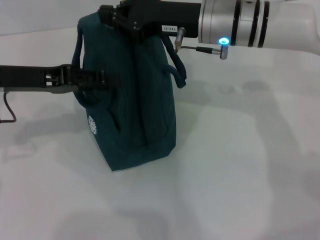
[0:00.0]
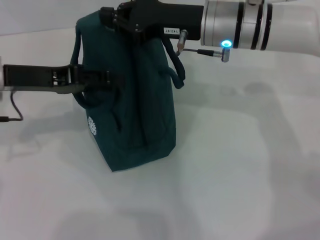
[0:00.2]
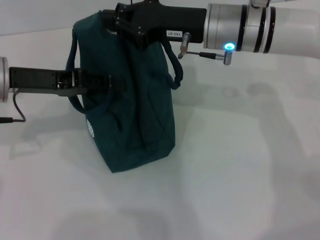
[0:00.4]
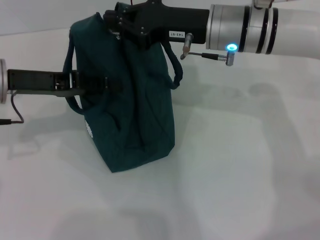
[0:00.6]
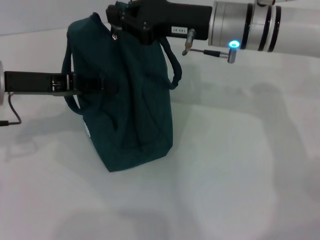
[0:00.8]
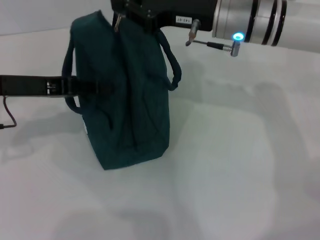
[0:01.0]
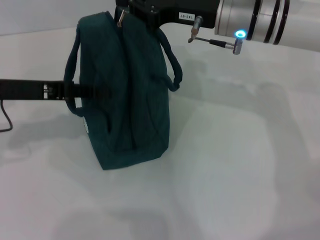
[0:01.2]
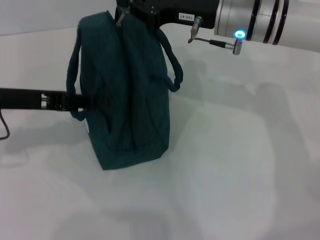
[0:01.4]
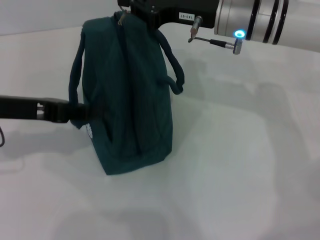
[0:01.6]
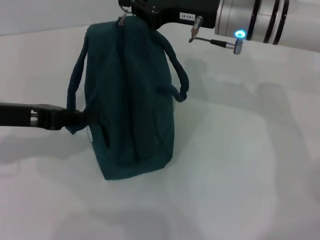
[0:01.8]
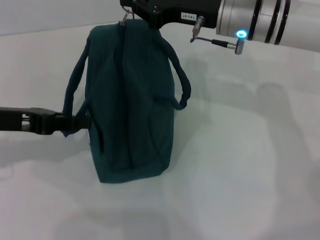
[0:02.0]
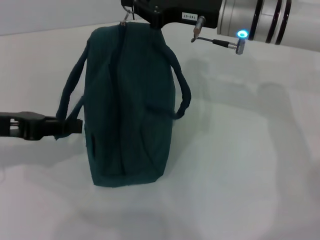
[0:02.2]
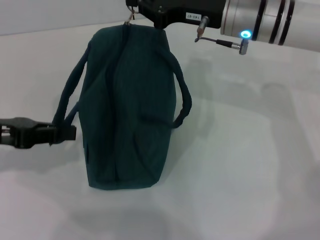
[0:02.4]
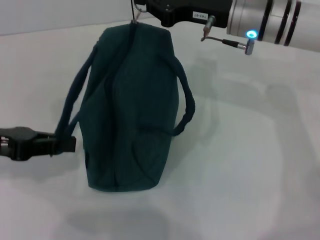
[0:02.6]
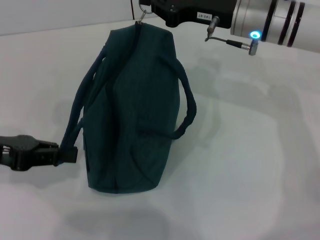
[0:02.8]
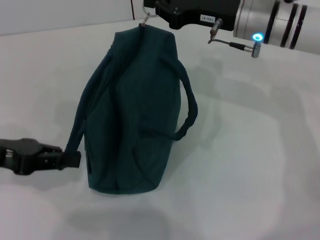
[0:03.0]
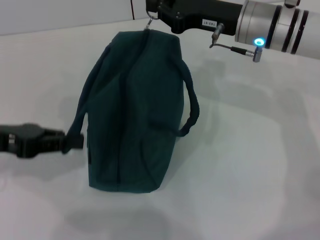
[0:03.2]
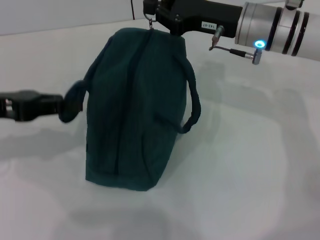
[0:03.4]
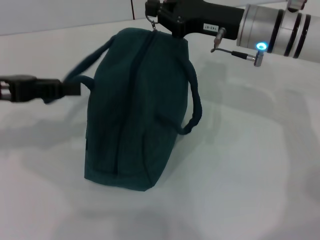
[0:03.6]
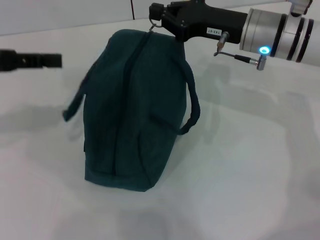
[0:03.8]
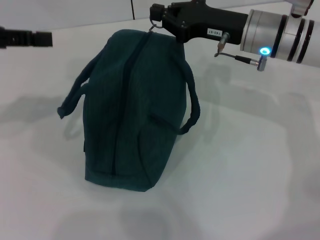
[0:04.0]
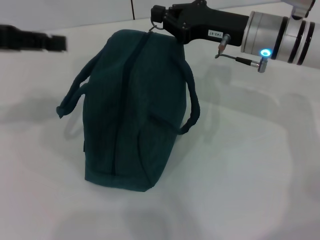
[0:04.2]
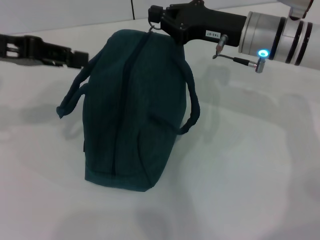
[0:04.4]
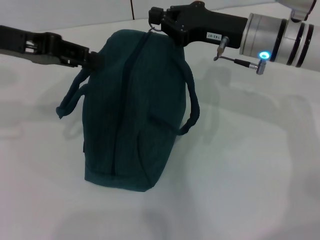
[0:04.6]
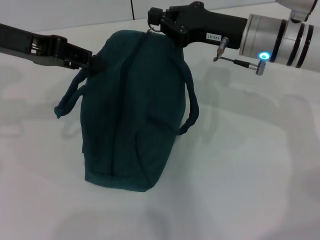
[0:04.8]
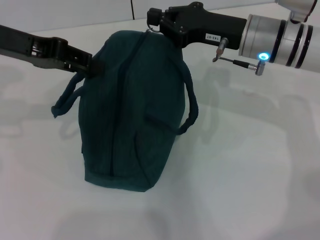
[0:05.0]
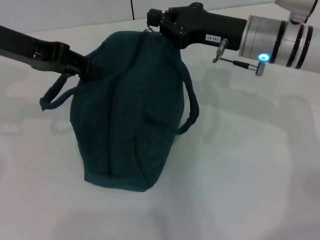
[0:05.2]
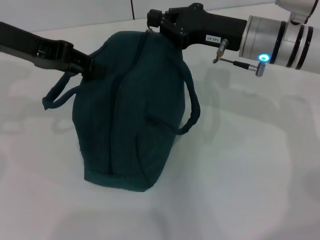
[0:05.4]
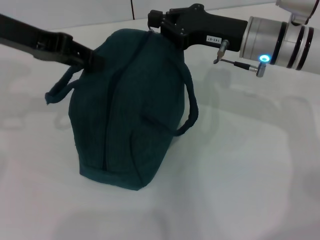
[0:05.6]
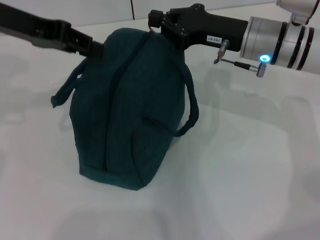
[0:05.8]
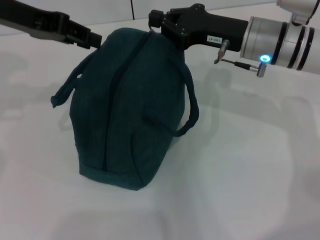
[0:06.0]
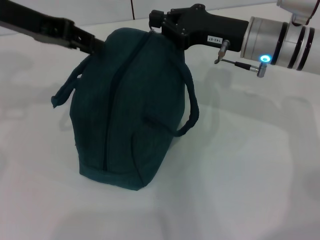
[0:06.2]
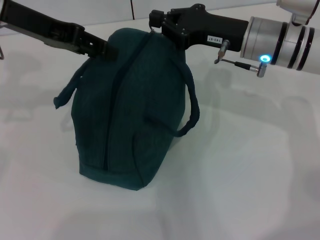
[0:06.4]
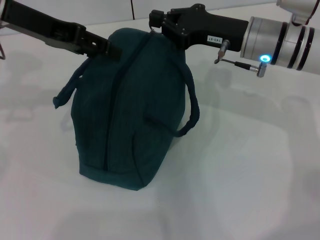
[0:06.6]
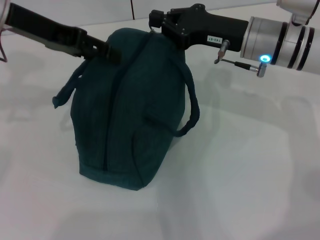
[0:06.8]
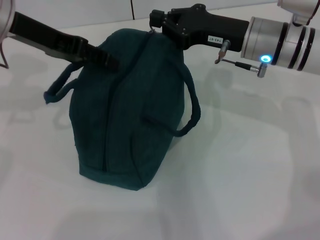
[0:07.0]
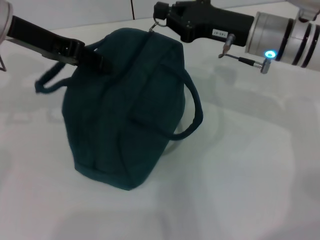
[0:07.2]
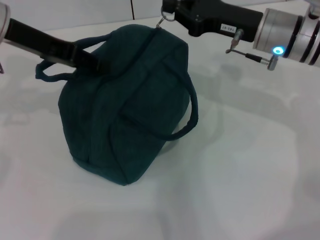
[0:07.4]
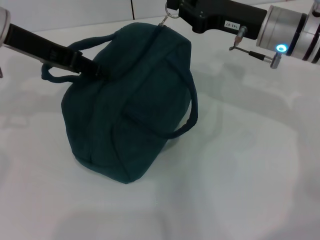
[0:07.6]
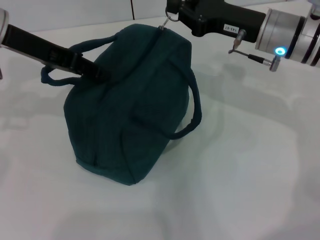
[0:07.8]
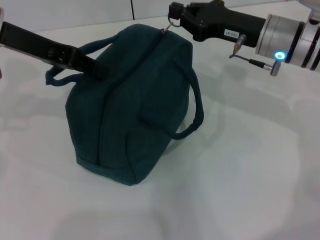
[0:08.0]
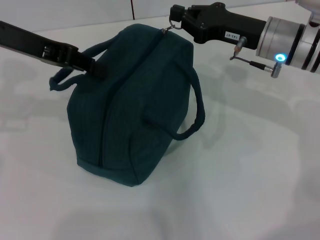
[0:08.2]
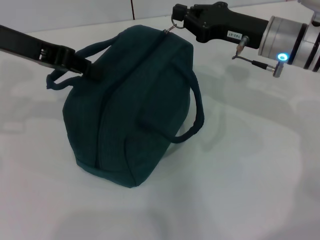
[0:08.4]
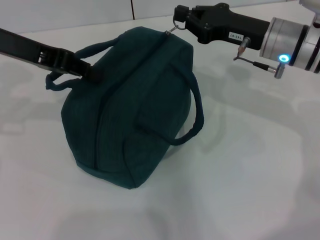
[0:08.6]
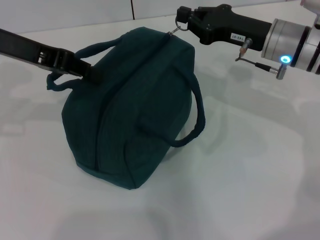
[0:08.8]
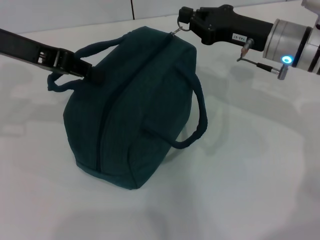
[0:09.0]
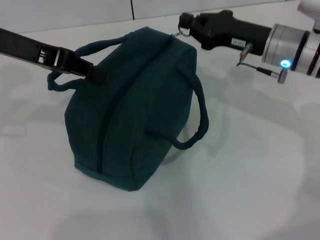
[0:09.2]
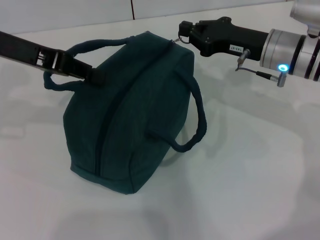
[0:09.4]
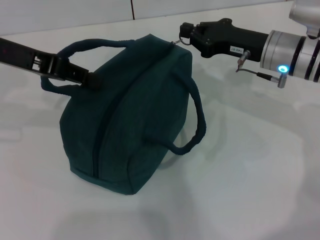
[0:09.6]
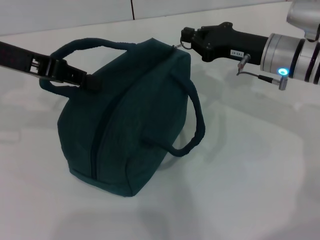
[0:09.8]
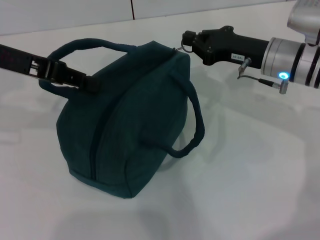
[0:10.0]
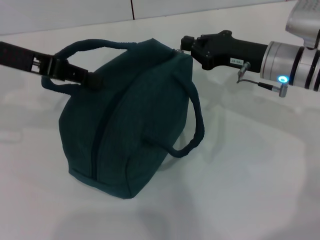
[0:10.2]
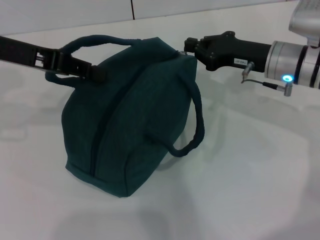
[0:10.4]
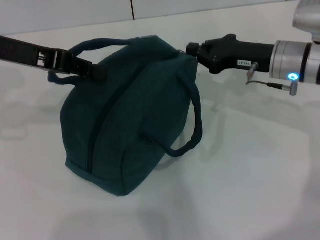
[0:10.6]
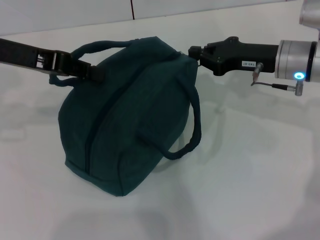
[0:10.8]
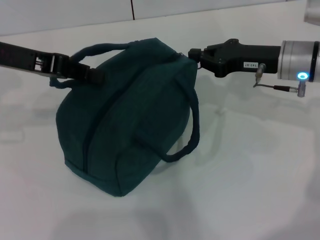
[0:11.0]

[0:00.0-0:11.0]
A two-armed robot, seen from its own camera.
0:00.0 to 0:01.6: The left gripper closes.
0:03.2 to 0:04.8: The left gripper heads upward, forward and to the right, covering about 15 cm, and opens up.
0:04.8 to 0:07.8: The grippers move only a little.
0:07.8 to 0:09.4: The left gripper closes its fingers.
0:09.4 to 0:11.0: The grippers make only small movements.

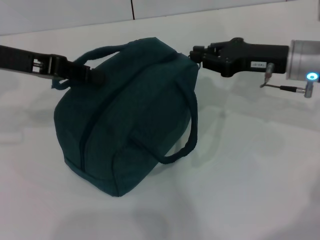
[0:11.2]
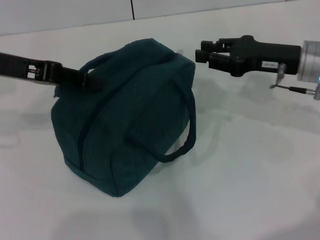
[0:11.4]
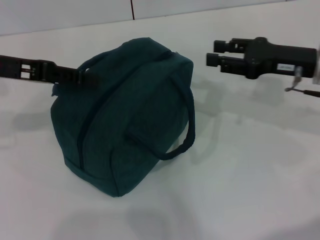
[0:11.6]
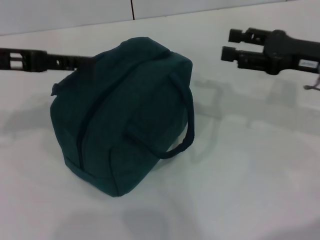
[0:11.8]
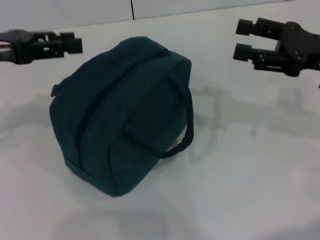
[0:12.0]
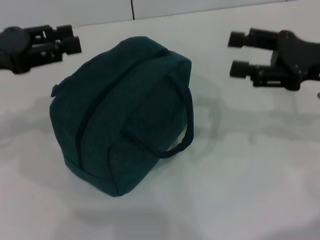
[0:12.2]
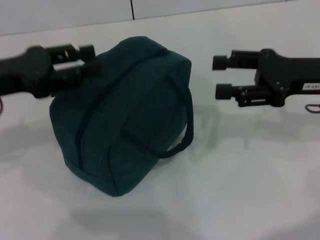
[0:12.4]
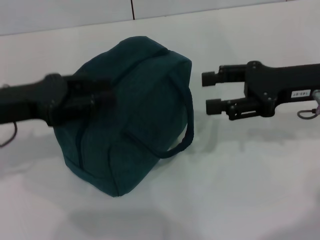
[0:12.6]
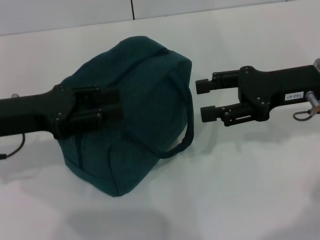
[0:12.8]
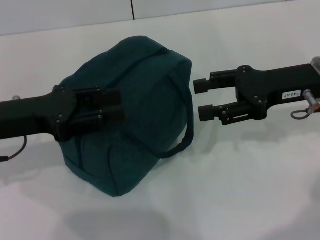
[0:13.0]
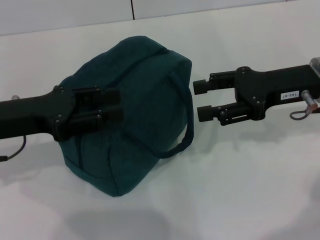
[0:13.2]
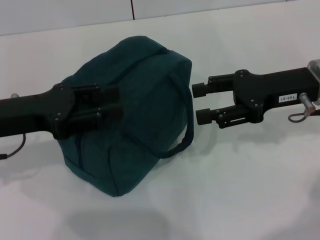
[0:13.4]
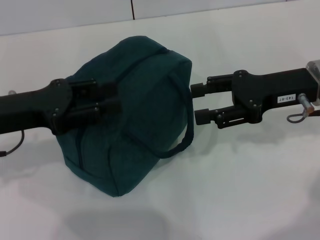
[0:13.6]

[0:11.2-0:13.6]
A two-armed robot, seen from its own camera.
Step, 0:11.4 to 0:11.8: Hold the lunch bag with your left hand.
0:11.2 to 0:12.4: The left gripper shifts by roughly 5 cm, and opens its fingers. Meanwhile the right gripper travels backward by about 5 cm, and opens.
0:12.4 to 0:13.6: The grippers stay close to where they were, moving slightly.
